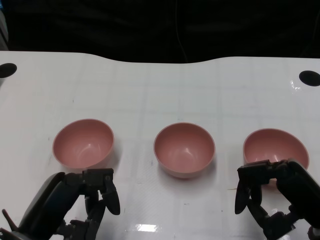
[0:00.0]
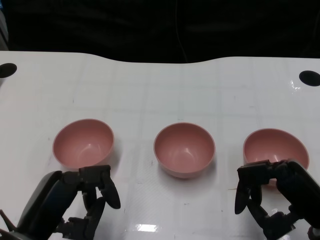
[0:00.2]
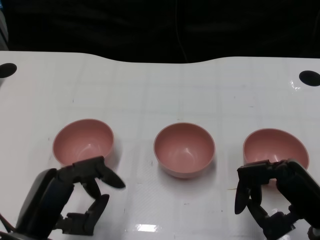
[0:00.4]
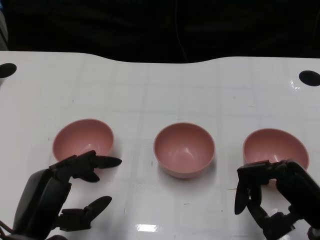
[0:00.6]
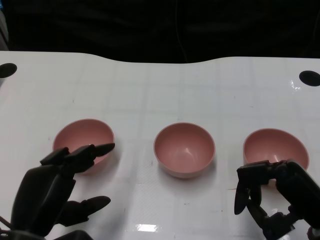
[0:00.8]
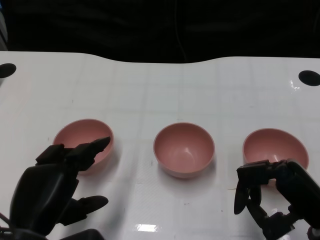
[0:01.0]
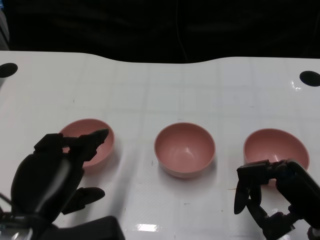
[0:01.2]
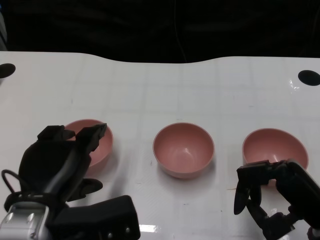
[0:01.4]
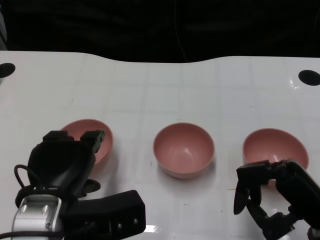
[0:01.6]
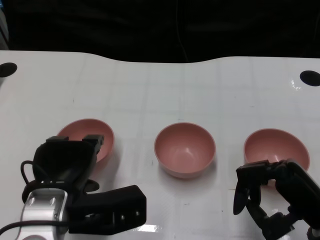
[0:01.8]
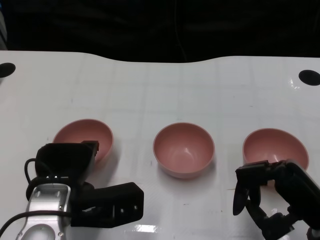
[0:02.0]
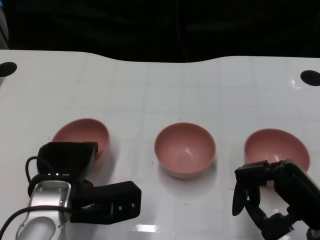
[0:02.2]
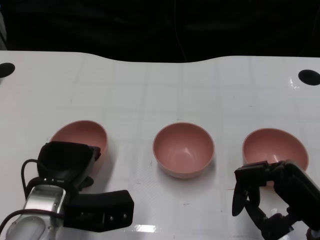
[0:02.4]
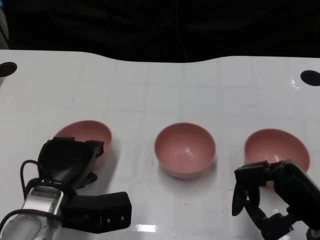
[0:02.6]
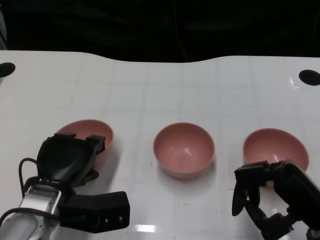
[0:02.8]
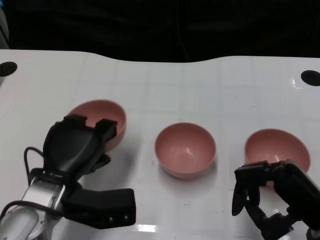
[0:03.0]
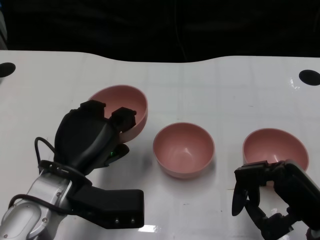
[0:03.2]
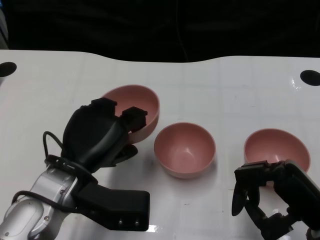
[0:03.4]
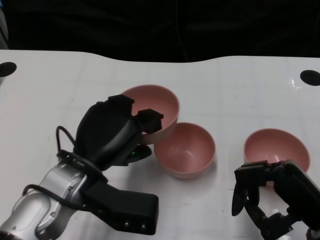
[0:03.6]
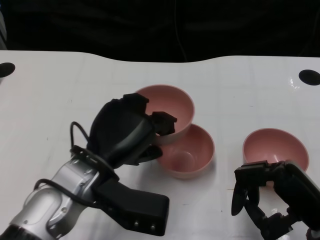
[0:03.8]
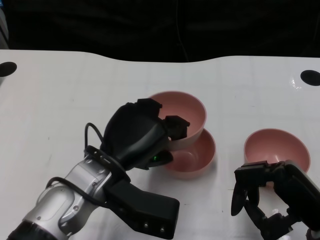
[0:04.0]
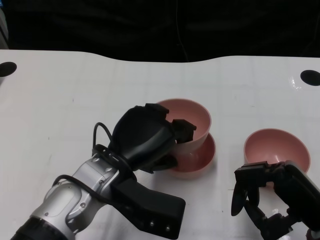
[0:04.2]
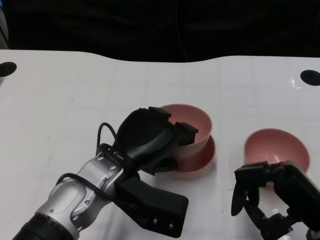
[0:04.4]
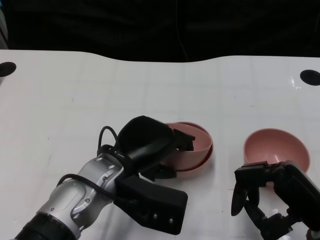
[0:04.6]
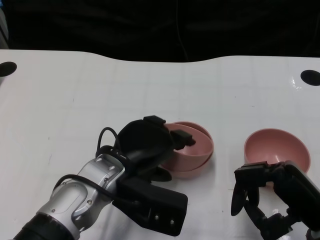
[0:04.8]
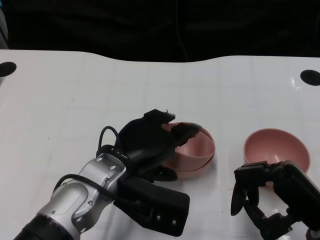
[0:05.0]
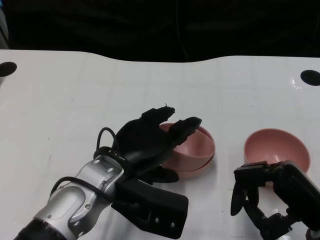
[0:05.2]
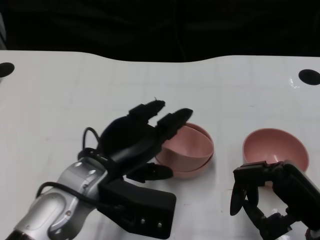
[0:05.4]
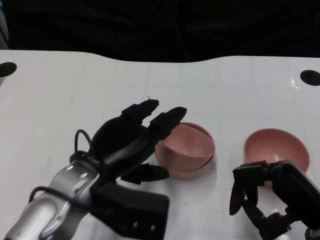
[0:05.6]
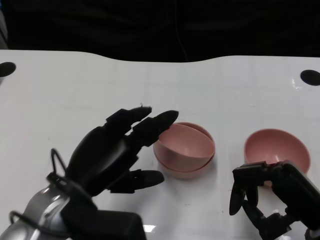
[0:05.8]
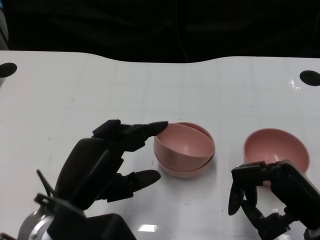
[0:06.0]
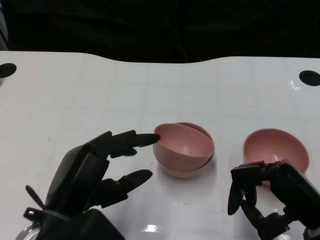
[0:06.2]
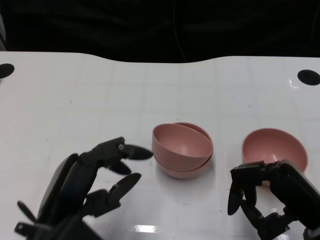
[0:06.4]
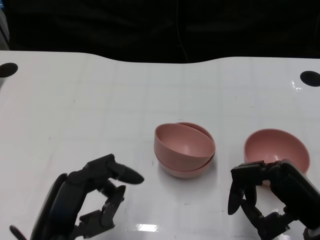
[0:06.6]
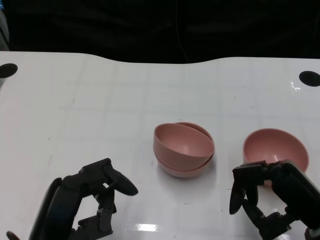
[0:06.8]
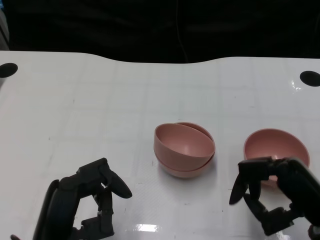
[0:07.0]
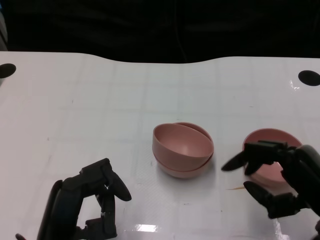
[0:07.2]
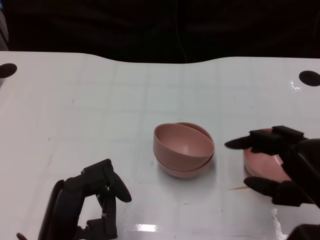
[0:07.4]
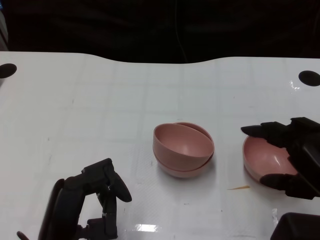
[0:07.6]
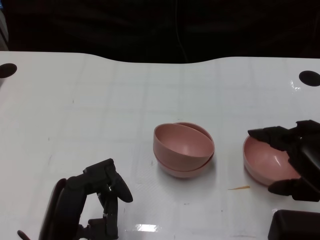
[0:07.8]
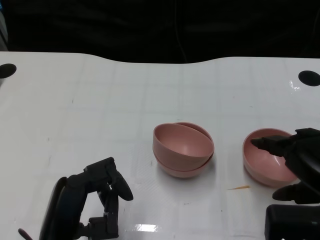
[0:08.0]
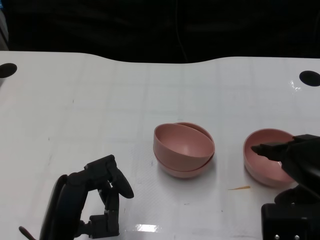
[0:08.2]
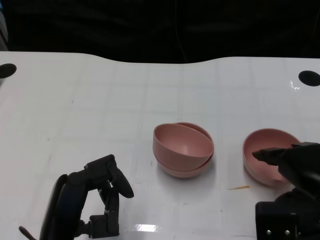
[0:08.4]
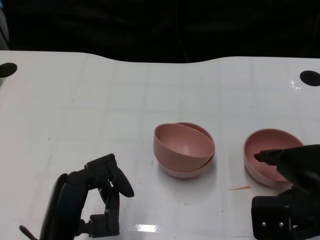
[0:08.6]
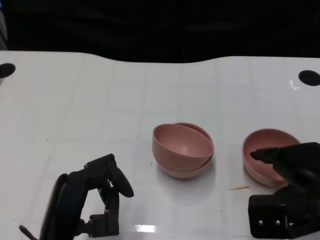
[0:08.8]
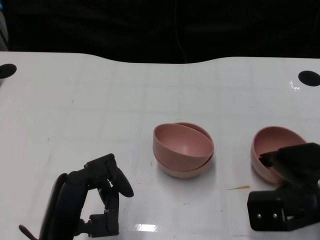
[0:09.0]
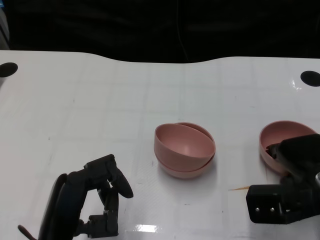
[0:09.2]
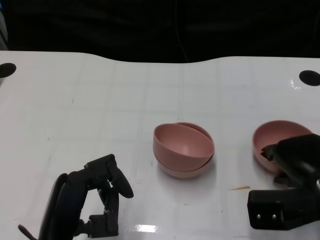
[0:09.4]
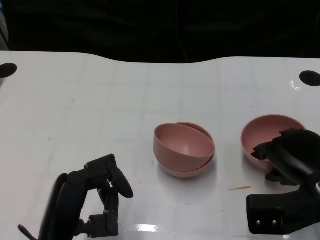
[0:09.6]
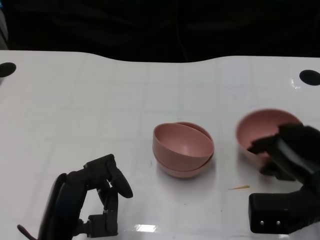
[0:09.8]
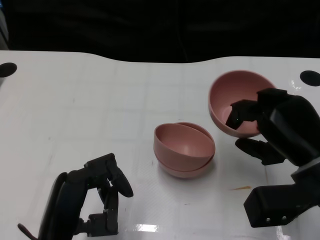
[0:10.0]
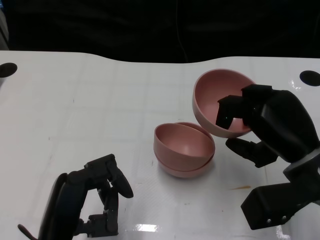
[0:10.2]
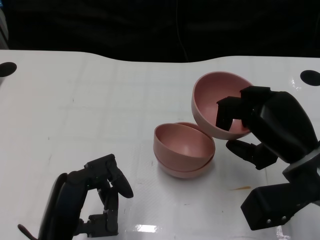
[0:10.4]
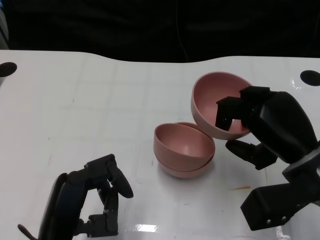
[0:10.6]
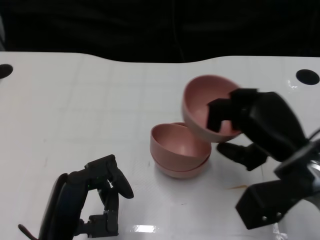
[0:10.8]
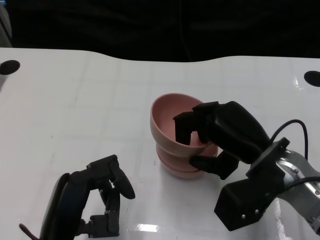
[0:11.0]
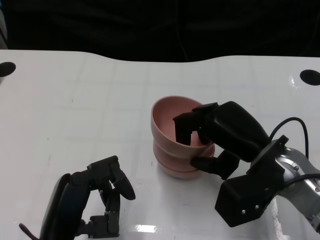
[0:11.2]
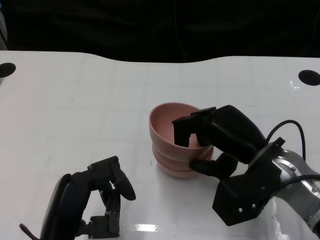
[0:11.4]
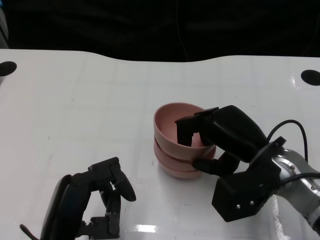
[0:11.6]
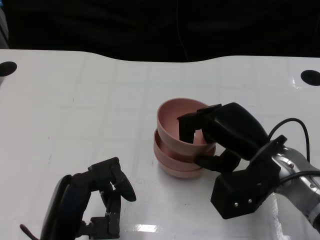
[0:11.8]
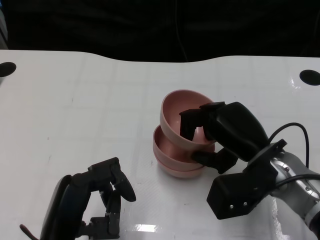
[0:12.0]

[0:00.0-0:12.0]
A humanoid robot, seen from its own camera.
Task of the whole recording: Pick up the bowl on one side of the table and place it on top of the middle bowl, then pick up the bowl on the other side of the table and place it on top of the middle bowls.
Step, 0:00.6 to 0:02.6: Grasp the bowl on the left with the left gripper.
Step, 0:02.8 to 0:05.6: Place the bowl on the left onto the bowl in the middle with left gripper.
Step, 0:05.8 to 0:09.4: Grasp the bowl on the right with the right gripper.
0:01.6 to 0:03.0: The left hand changes place by about 5 cm.
0:03.0 to 0:04.4: The left hand shifts roughly 10 cm to the right.
0:04.4 to 0:06.0: The left hand goes about 10 cm to the left and backward.
0:06.0 to 0:07.6: The right hand is displaced upward by roughly 5 cm. Meanwhile the left hand changes place by about 5 cm.
0:07.6 to 0:09.0: The right hand is displaced forward and downward by some 10 cm.
0:10.4 to 0:12.0: The right hand shifts by some 5 cm.

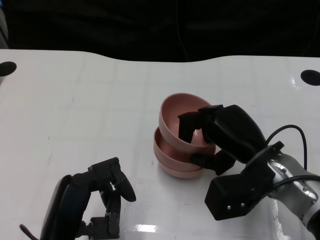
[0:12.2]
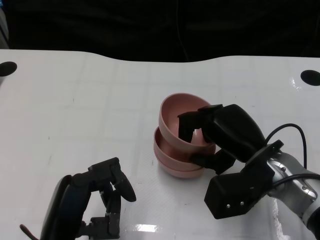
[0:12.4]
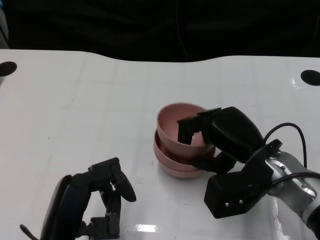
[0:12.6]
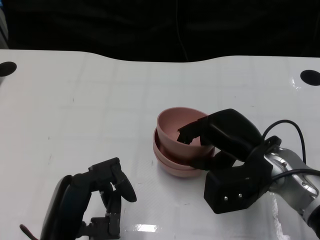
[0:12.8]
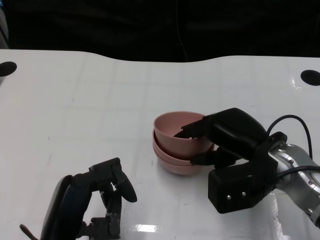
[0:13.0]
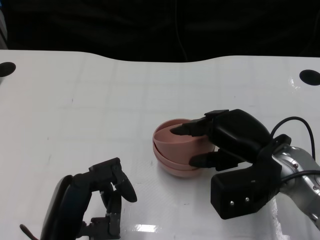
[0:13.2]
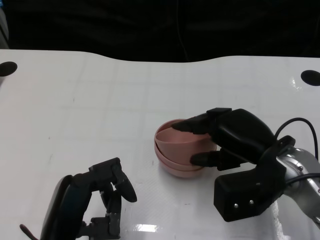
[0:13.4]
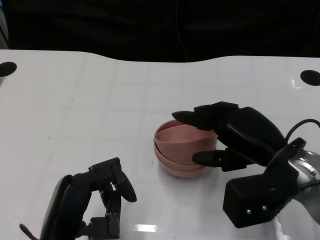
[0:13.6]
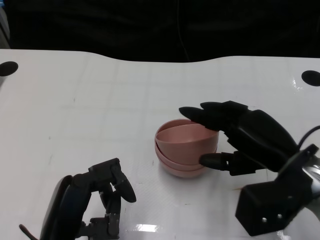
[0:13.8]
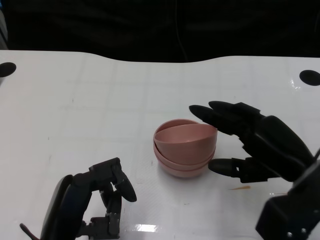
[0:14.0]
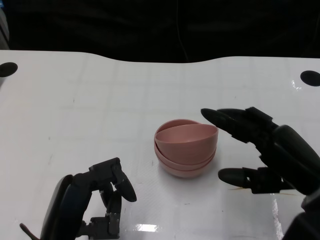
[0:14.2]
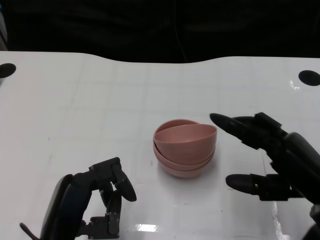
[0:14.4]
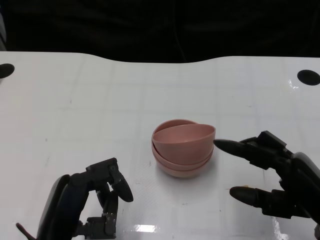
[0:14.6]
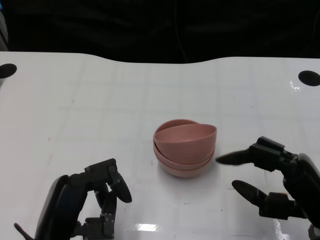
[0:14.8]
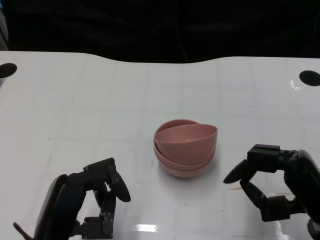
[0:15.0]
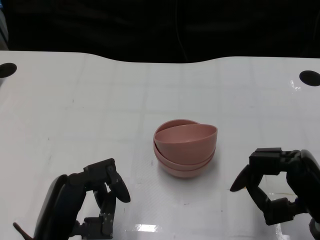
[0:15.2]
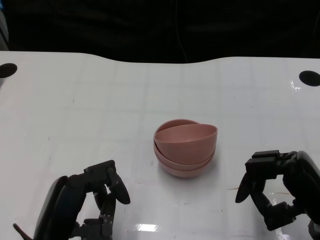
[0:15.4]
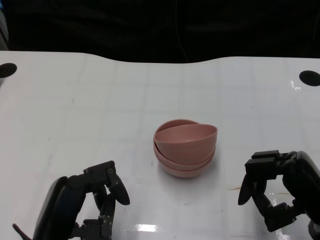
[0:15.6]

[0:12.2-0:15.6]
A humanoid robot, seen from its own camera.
Task of the whole recording: Pick up the bowl on one side of the table and place it on top of the middle bowl, then pick up the bowl on the other side of the table and place it on top of the middle bowls.
0:12.2 to 0:13.8: The right hand shifts by approximately 5 cm.
0:13.8 to 0:15.6: The right hand shifts approximately 10 cm backward and downward.

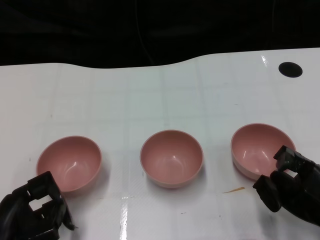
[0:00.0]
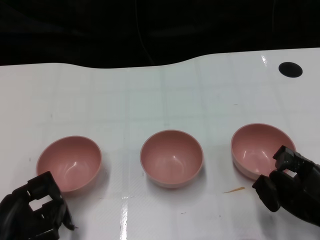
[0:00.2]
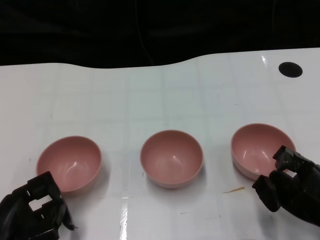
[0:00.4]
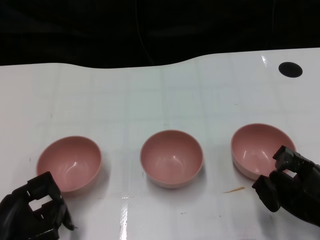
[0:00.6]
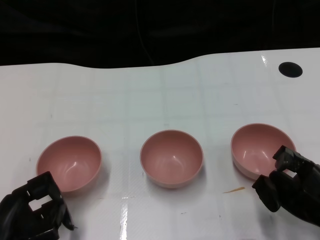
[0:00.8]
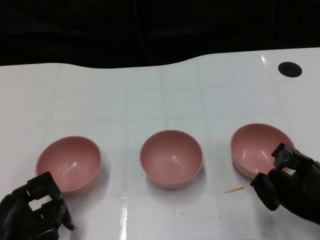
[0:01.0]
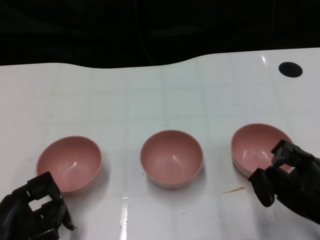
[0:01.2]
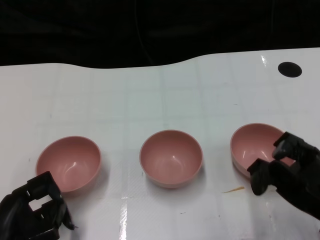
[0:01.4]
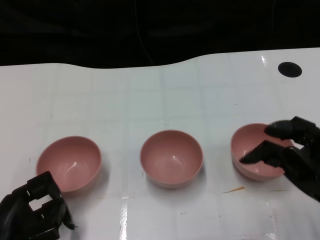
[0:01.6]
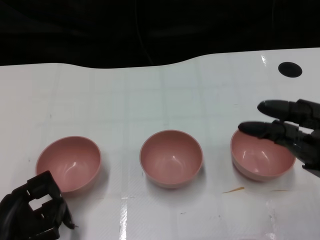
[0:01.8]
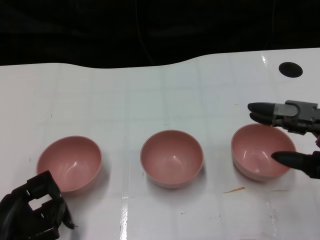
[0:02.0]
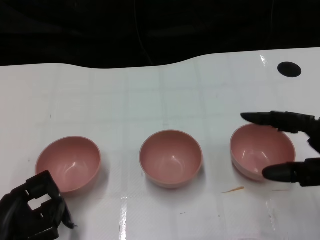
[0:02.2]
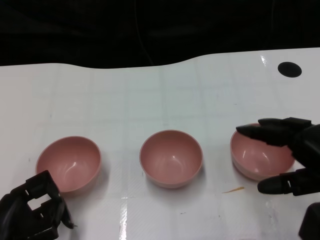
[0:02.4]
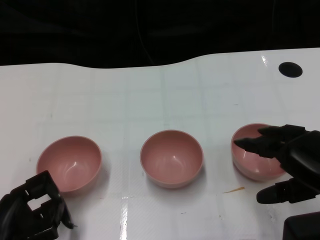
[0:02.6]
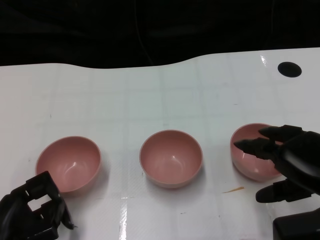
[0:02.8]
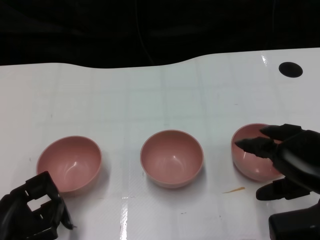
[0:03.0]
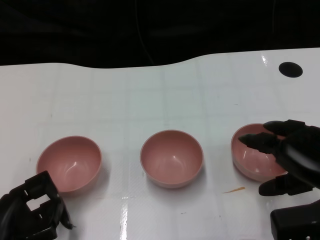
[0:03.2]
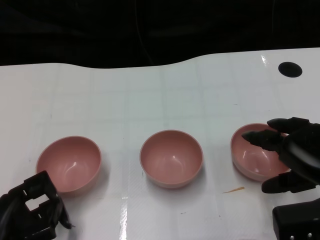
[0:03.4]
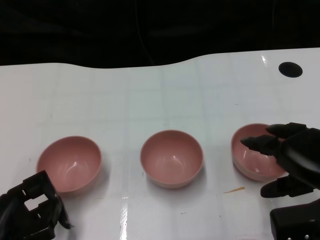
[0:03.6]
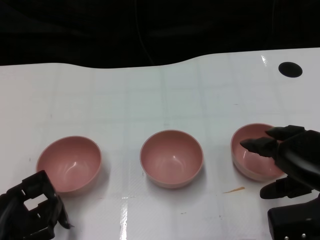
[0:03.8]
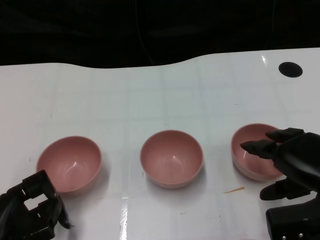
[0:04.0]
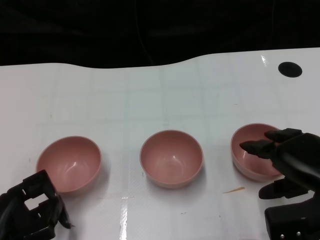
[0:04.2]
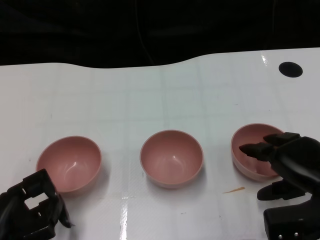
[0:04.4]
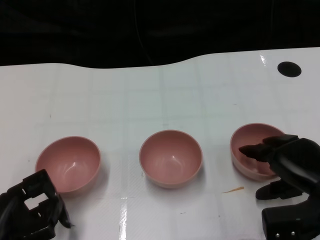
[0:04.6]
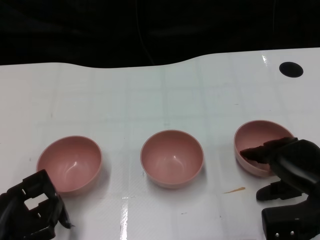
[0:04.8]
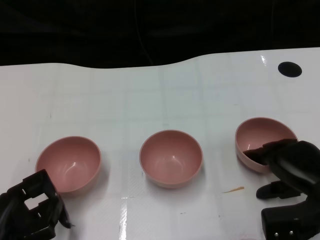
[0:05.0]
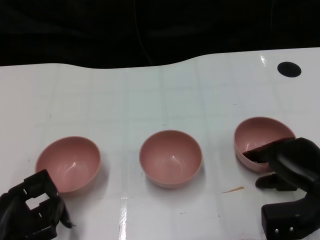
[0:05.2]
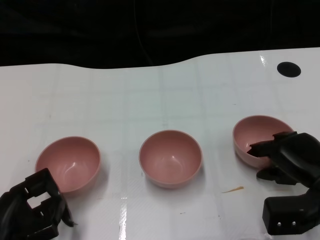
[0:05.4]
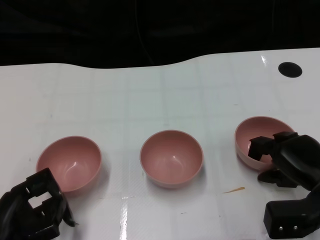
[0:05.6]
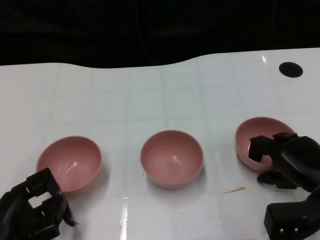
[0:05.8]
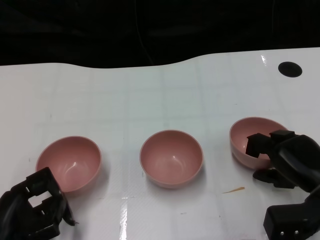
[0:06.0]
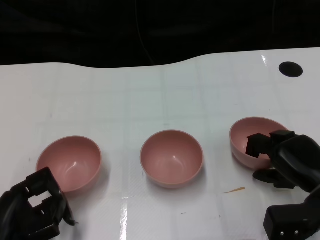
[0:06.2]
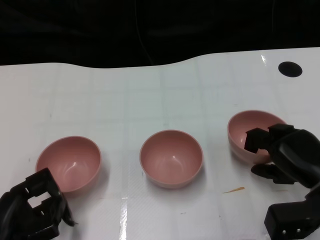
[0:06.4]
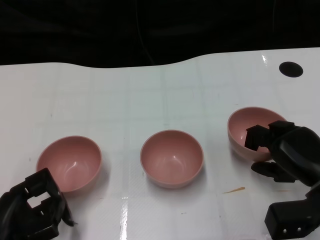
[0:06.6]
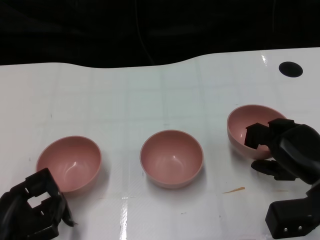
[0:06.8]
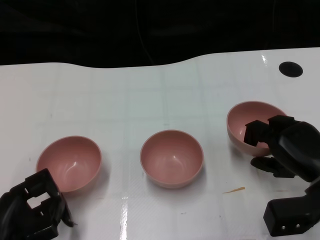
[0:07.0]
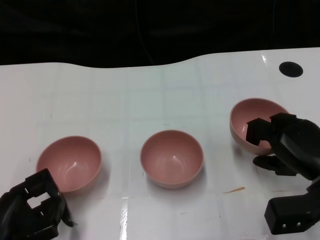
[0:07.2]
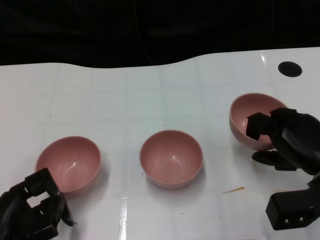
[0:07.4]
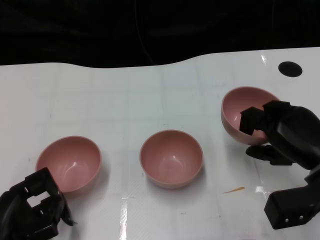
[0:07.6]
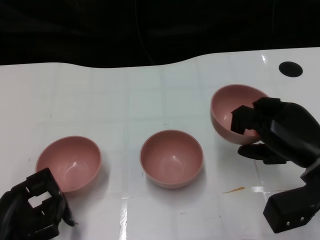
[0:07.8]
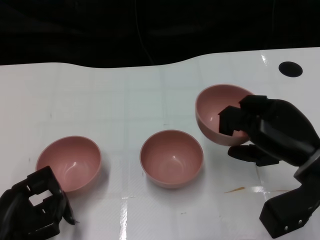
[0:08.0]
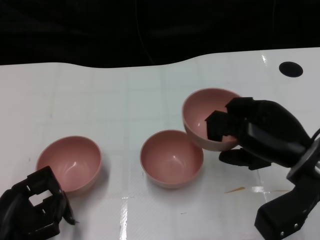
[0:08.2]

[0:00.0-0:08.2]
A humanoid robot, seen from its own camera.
Task of the whole recording: Pick up the bowl on one side of the table and place it on top of the middle bowl, then pick up the bowl on the other side of the table and place it on top of the middle bowls.
Step, 0:01.0 to 0:06.0: Grasp the bowl on the right with the right gripper.
0:03.2 to 0:05.0: The right hand is displaced downward by roughly 5 cm.
0:05.0 to 0:06.6: The hands make only small movements.
0:06.6 to 0:08.2: The right hand heads upward, covering some 5 cm.
